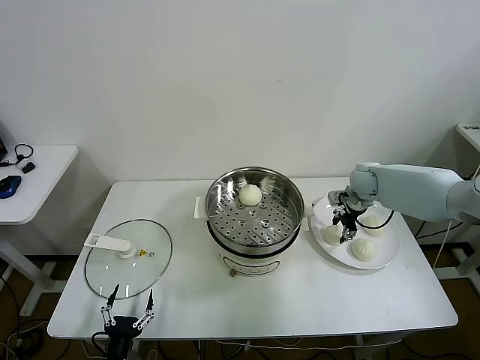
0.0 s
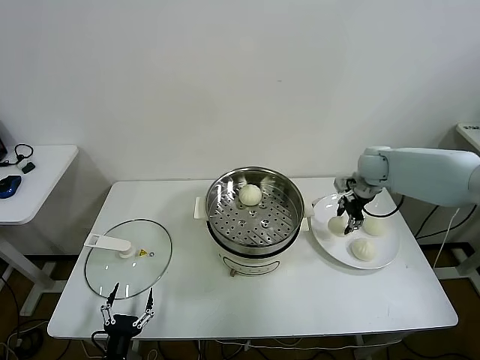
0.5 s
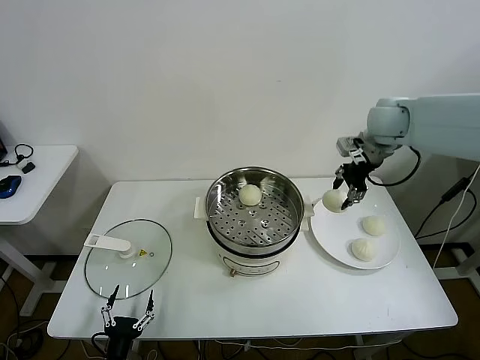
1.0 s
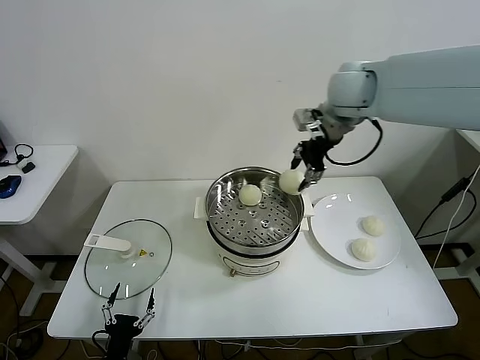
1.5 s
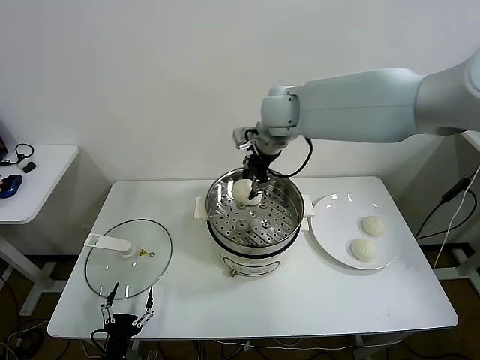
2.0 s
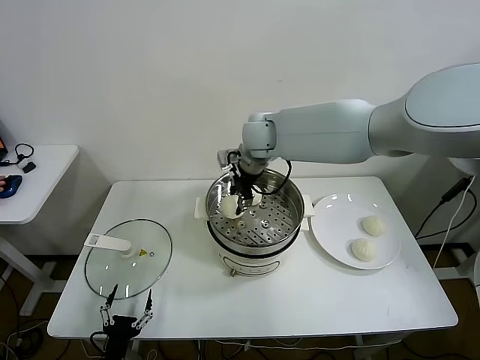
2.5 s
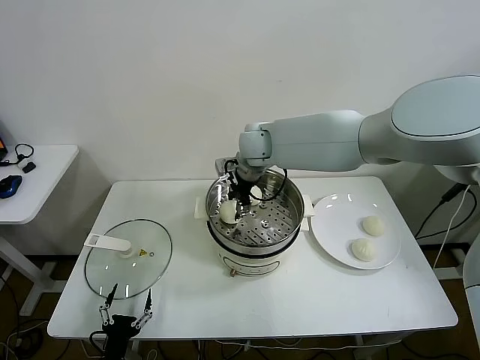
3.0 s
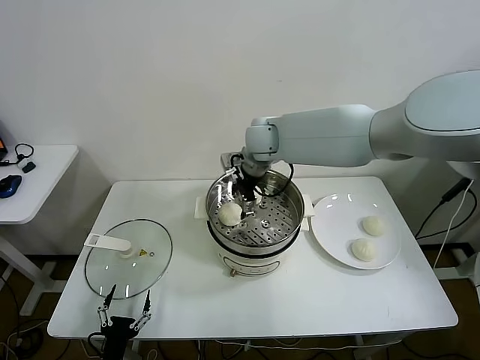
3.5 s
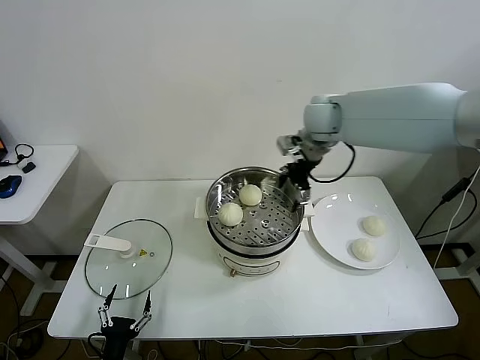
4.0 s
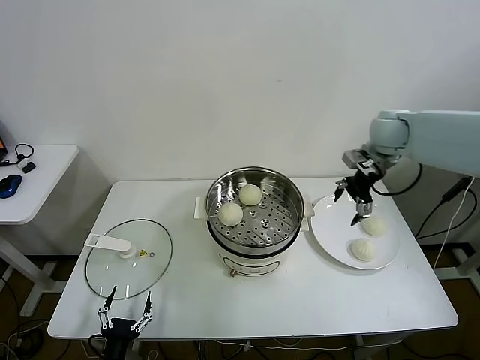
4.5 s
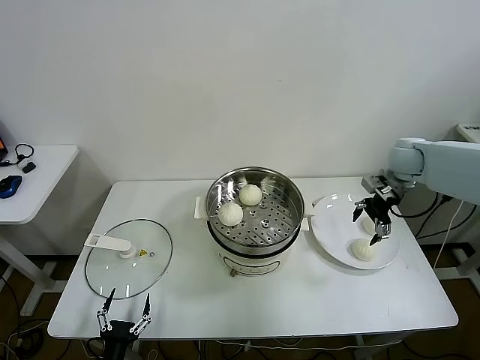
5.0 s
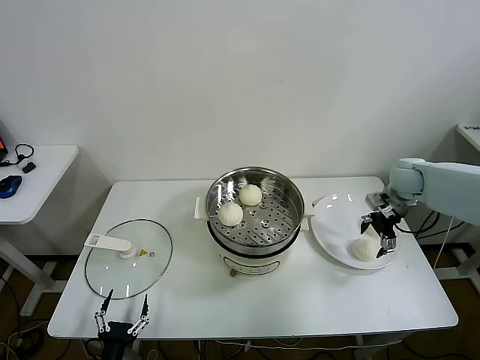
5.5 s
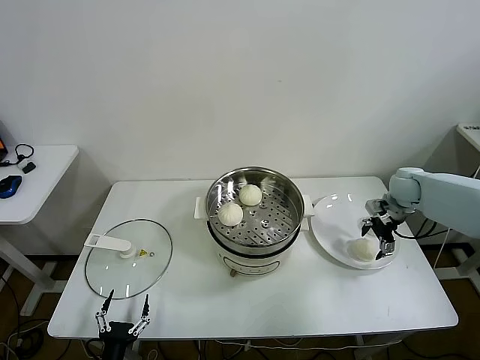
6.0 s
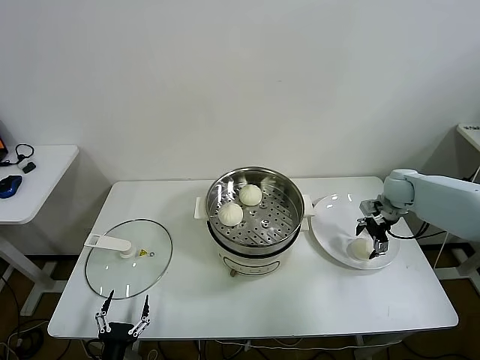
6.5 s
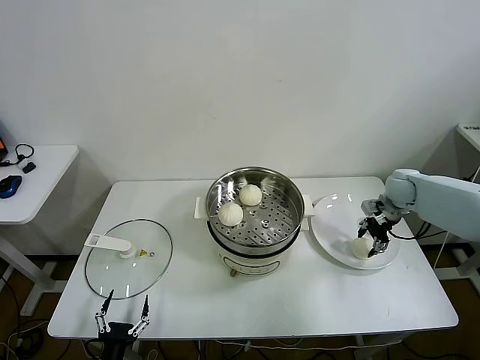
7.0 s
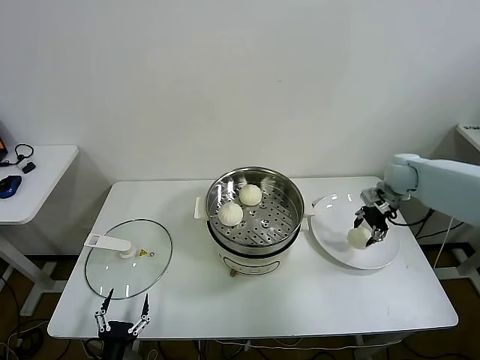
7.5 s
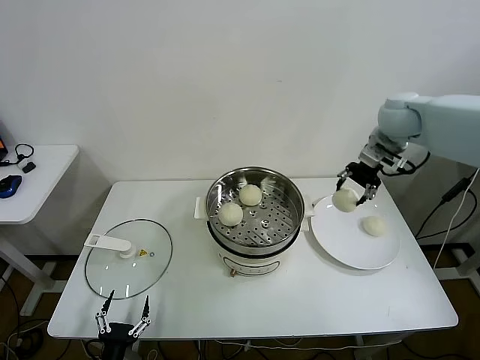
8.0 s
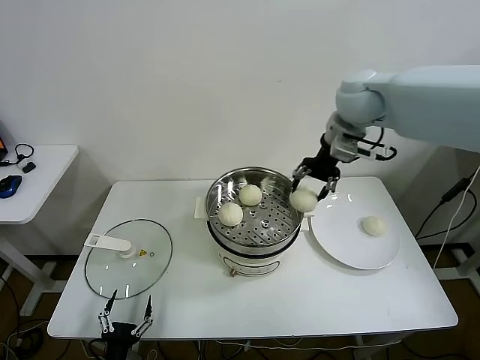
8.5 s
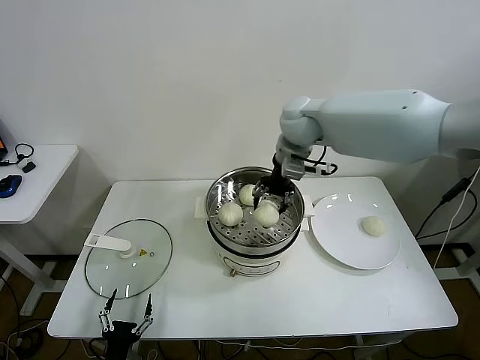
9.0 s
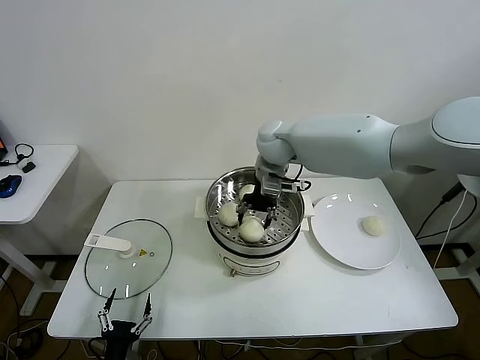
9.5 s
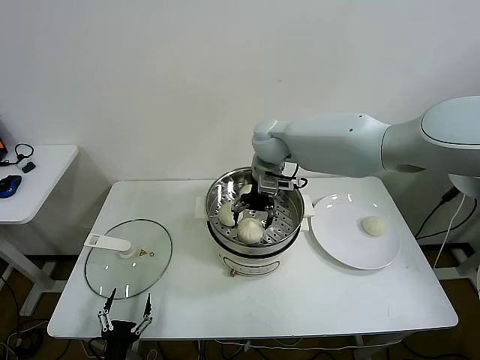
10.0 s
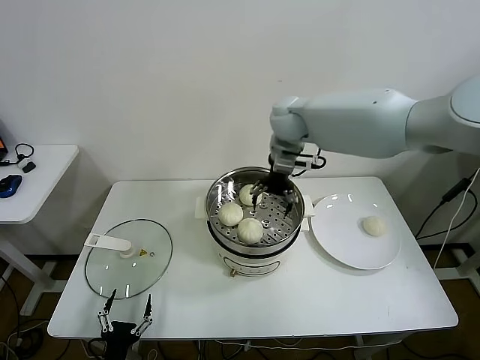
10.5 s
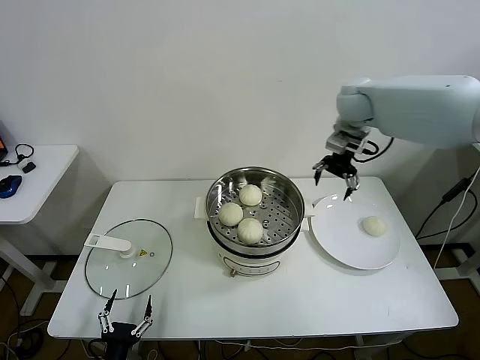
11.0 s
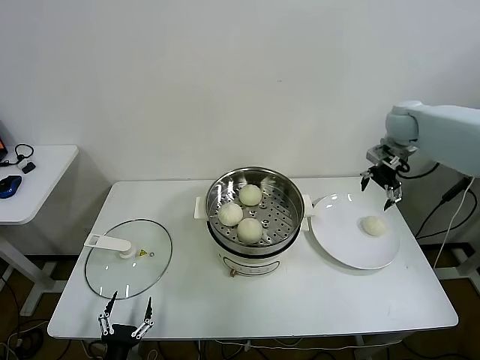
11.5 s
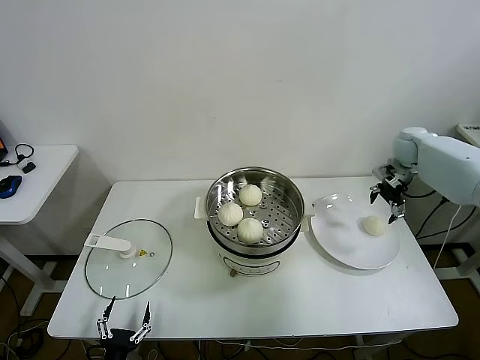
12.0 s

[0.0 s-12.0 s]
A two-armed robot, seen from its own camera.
Task of the whole recording: take steamed baozi put them in steamer.
Step, 0.0 to 3.0 s: Place the baozi on the steamer with right gripper.
Step, 4.0 to 7.0 s: Grasp the baozi in the plate with right gripper.
Step, 7.5 to 10.0 s: Place the baozi on the steamer with right gripper.
0.0 to 2.0 s: The right gripper shifts approximately 35 cm to the left and upward.
2.0 to 4.0 s: The right gripper goes some 15 cm to the right, and opens its fingers.
4.0 to 6.0 s: The right gripper shifts approximately 30 cm to the right and downward.
6.0 to 8.0 s: The right gripper heads upward and to the left, covering some 25 cm, and closes.
8.0 to 10.0 s: The right gripper is displaced to the left by approximately 25 cm, and opens its fingers.
10.0 to 12.0 s: The right gripper moves to the right, approximately 40 cm.

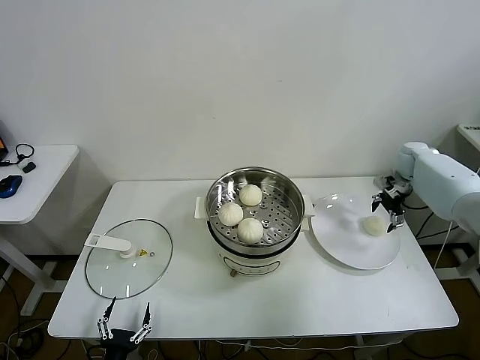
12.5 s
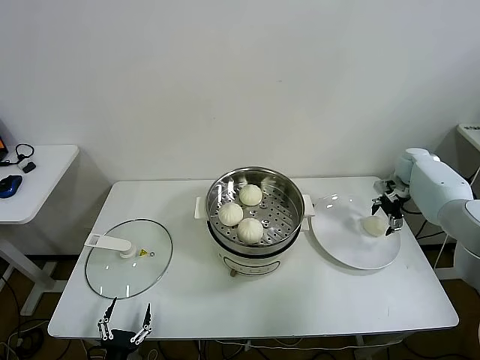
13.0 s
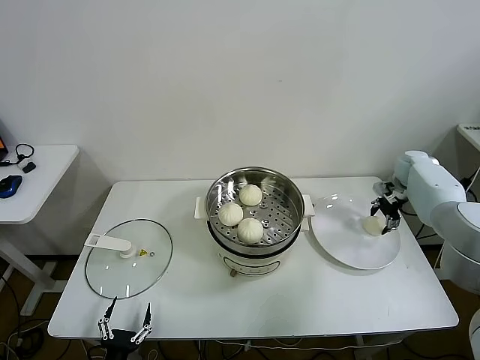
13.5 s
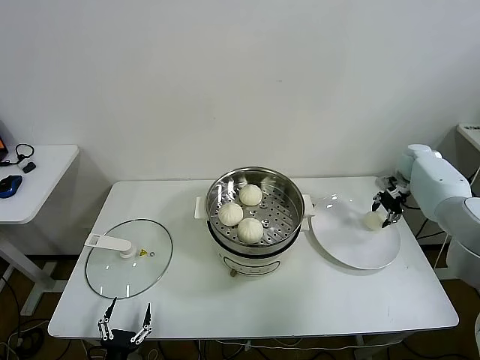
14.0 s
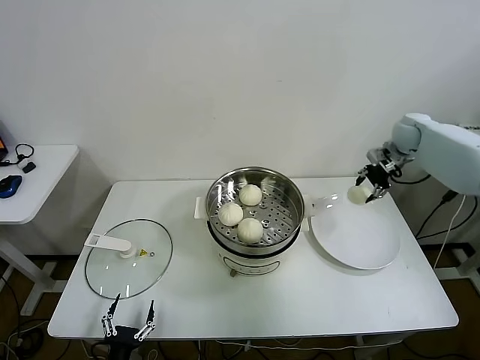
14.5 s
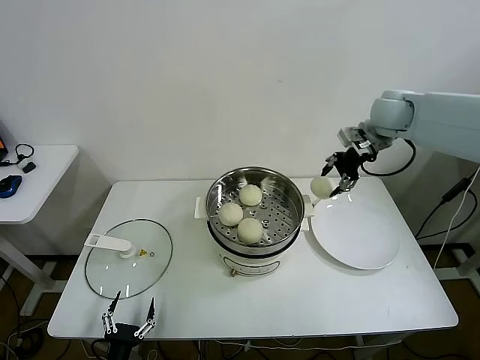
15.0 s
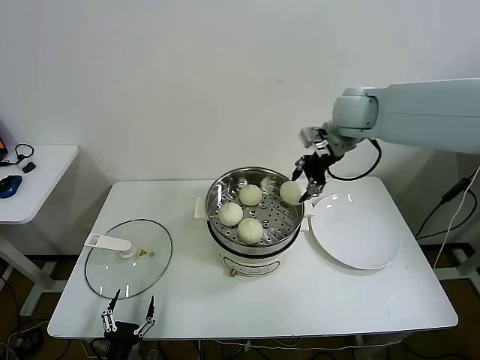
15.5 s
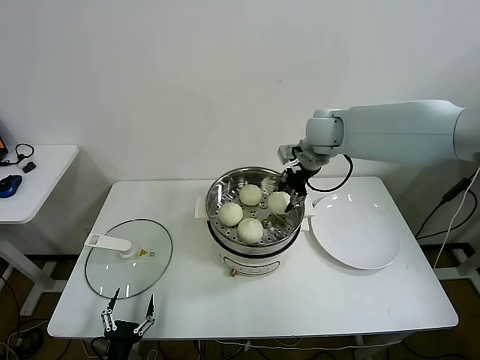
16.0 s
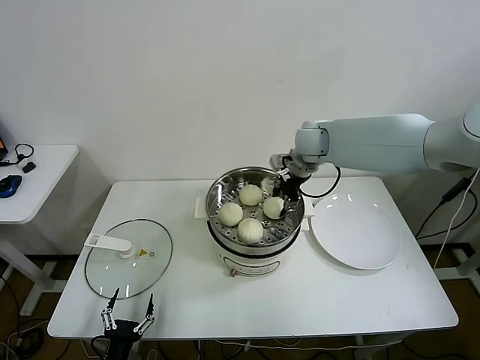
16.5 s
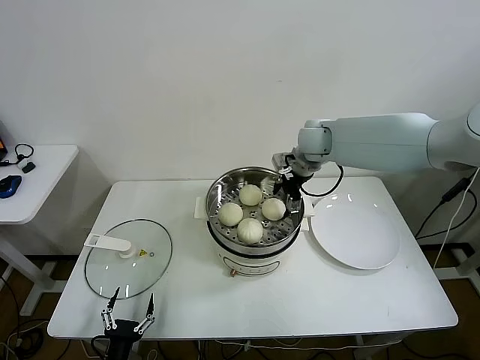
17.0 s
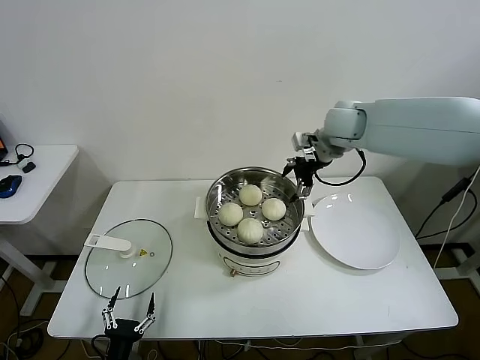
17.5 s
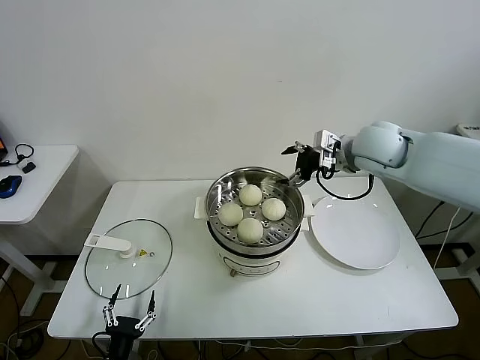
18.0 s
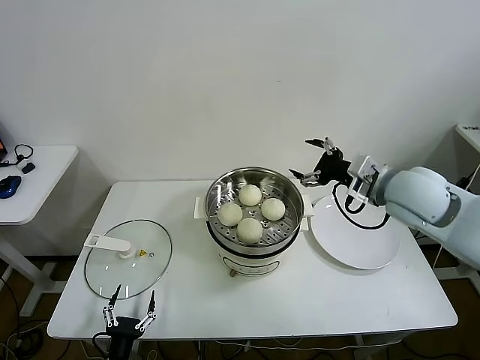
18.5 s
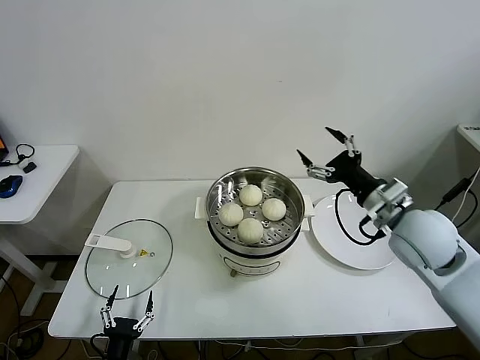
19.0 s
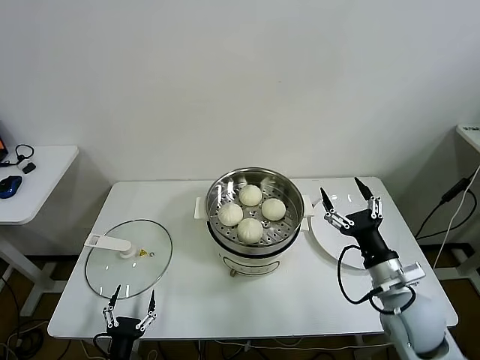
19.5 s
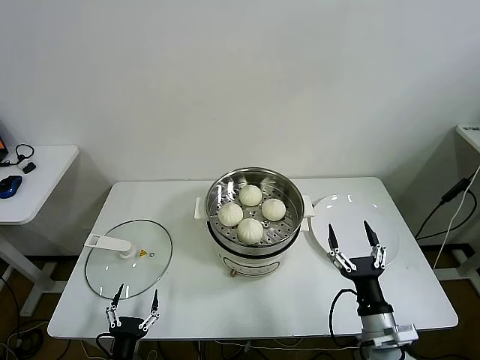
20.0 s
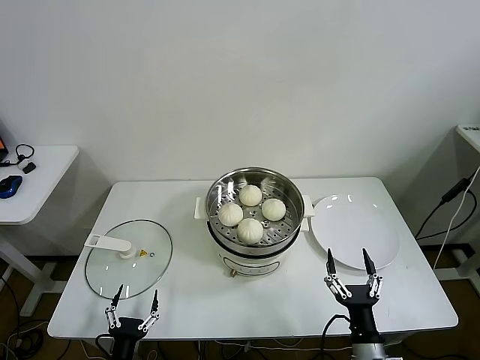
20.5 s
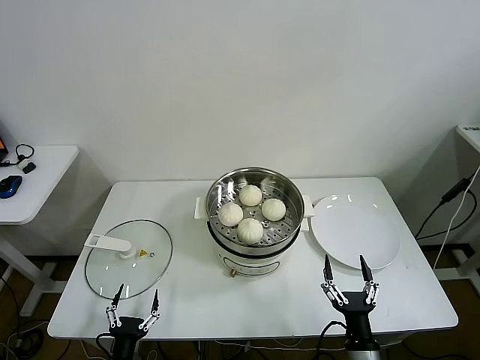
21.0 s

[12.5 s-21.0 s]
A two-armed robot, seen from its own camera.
Task of the whole recording: take steamed baozi put them in steamer.
Step, 14.0 to 17.0 s: Place the baozi on the steamer with right gripper.
12.5 to 14.5 s: The right gripper heads upward, covering roughly 10 cm, and closes up.
14.5 to 16.5 s: The right gripper goes roughly 25 cm to the left.
16.5 to 19.0 s: The right gripper is displaced backward and to the right by about 25 cm, and opens up.
19.0 to 21.0 s: The right gripper shifts approximately 35 cm downward and backward.
